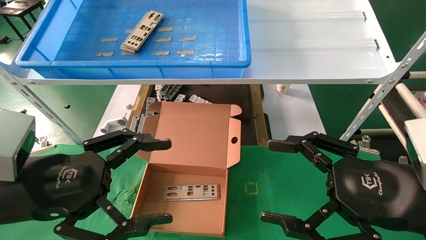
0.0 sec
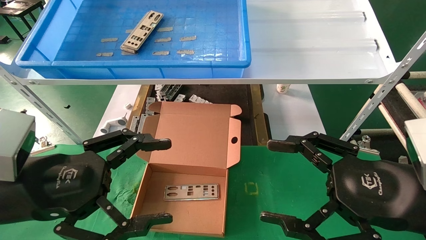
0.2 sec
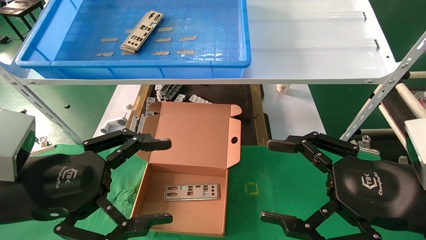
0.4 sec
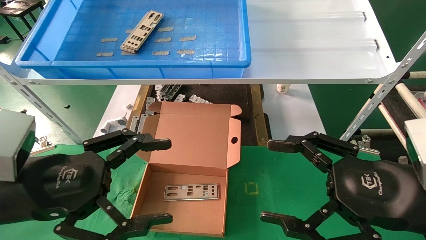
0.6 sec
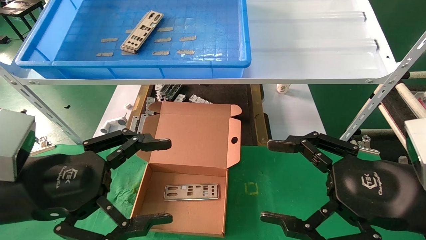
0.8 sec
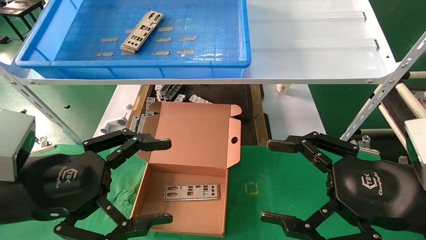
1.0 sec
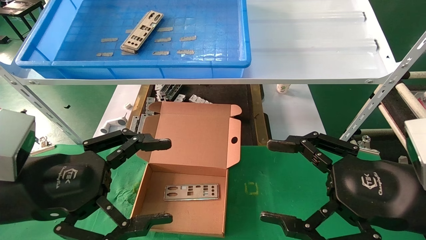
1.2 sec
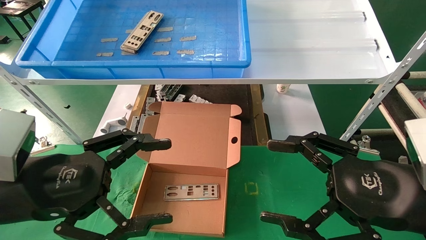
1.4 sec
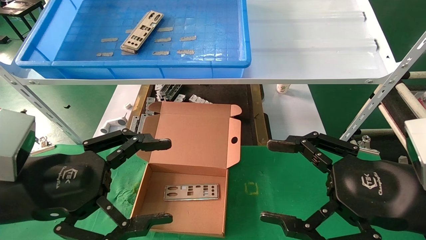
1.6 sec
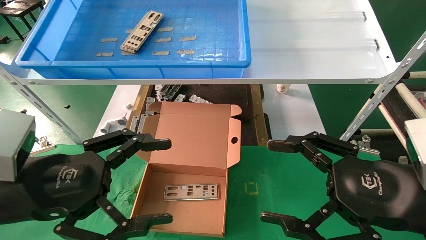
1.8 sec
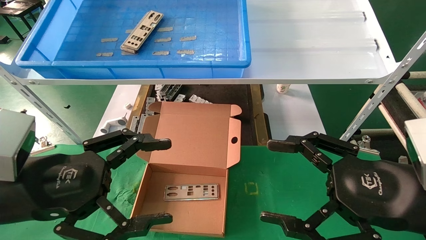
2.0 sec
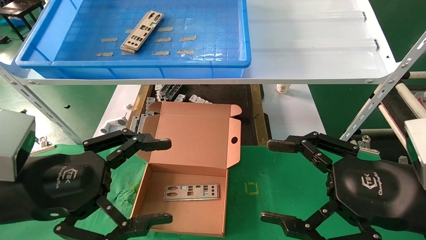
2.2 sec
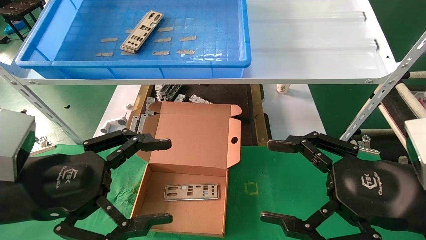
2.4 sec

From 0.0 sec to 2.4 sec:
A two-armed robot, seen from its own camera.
Task of the whole recording: pick up the parts on the tray and put them in the cardboard box.
From 0.0 sec to 2.4 sec: Neither gripper changes place.

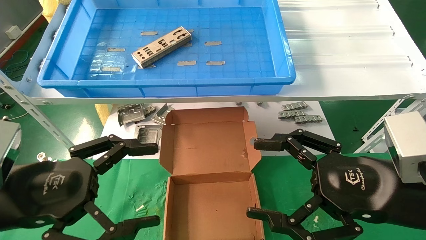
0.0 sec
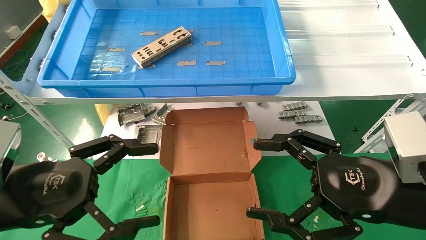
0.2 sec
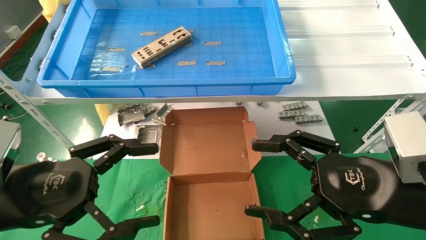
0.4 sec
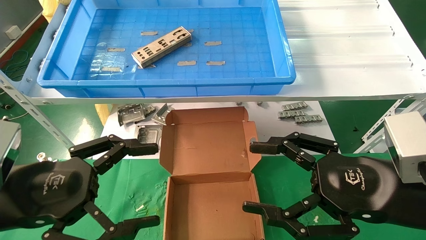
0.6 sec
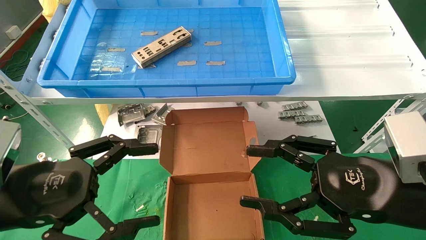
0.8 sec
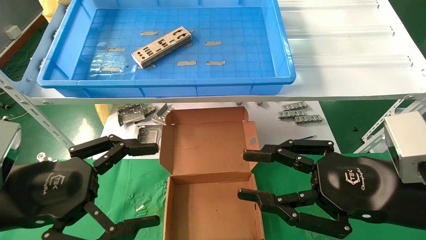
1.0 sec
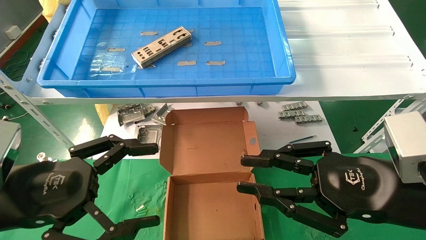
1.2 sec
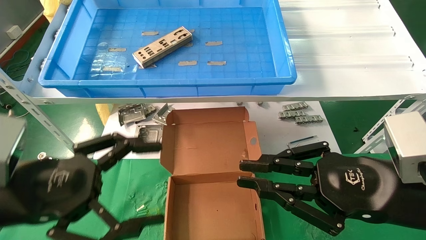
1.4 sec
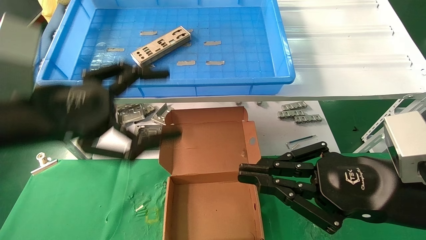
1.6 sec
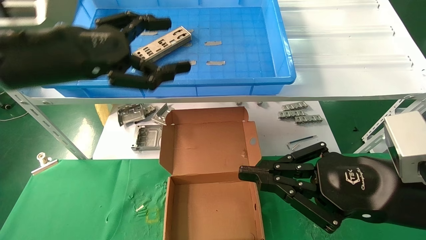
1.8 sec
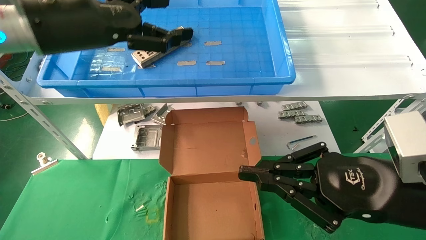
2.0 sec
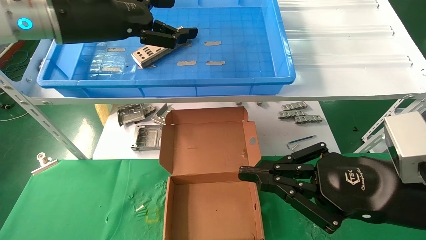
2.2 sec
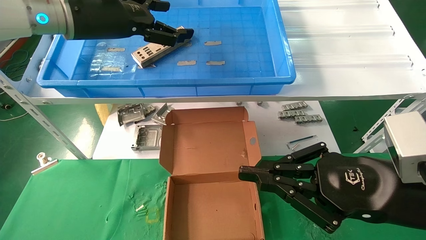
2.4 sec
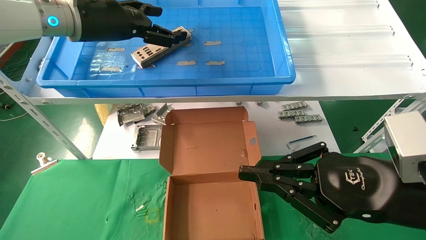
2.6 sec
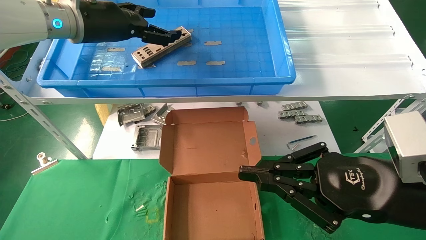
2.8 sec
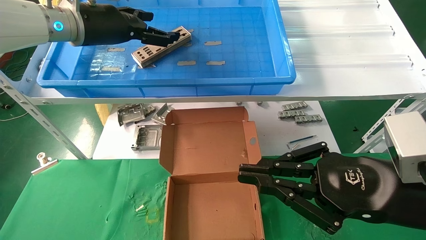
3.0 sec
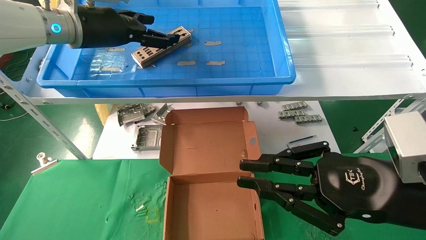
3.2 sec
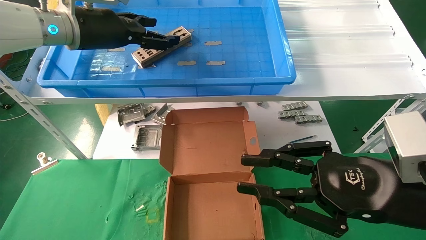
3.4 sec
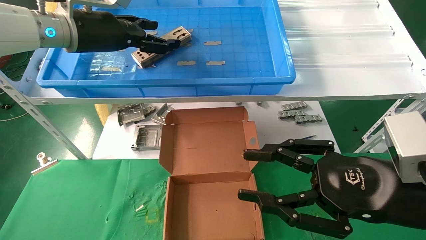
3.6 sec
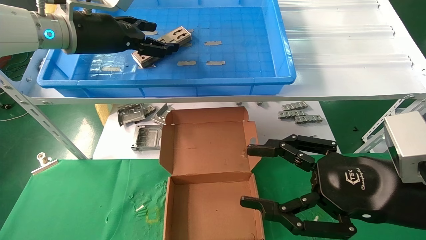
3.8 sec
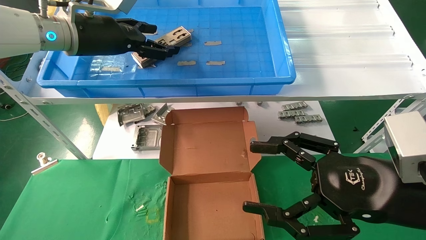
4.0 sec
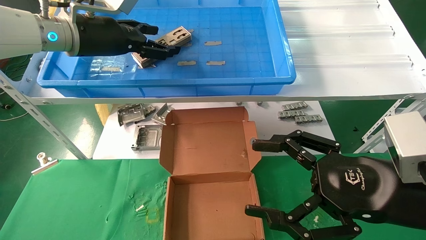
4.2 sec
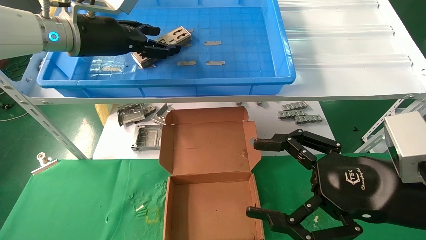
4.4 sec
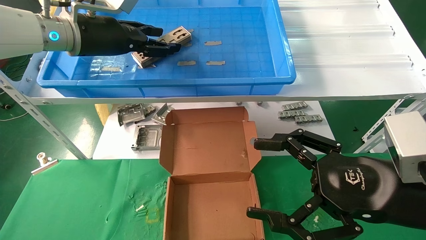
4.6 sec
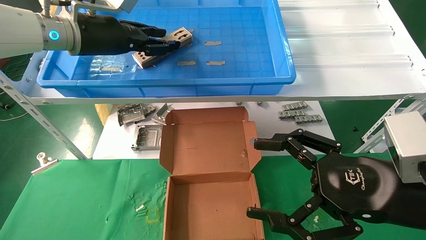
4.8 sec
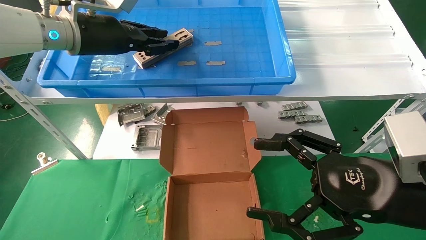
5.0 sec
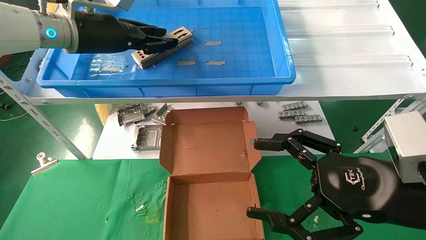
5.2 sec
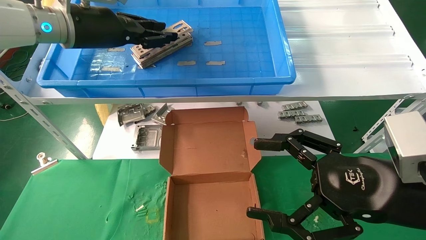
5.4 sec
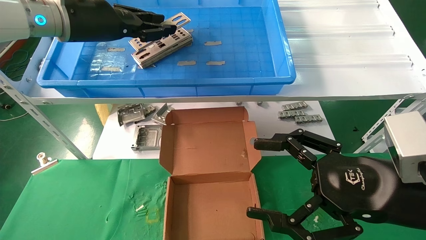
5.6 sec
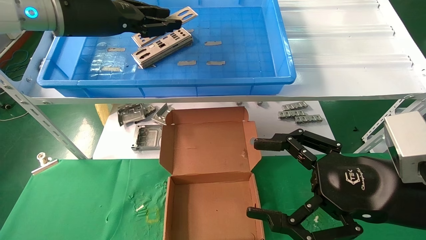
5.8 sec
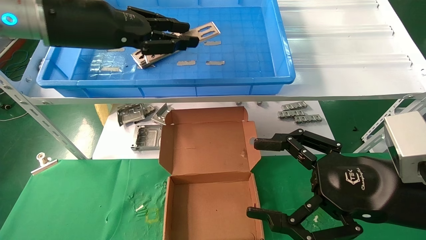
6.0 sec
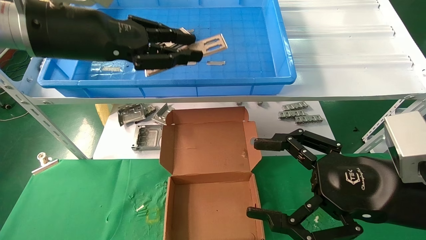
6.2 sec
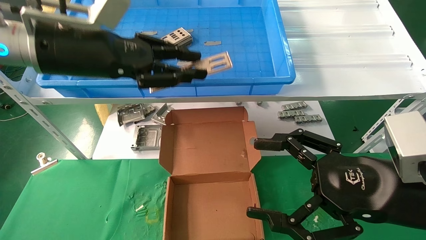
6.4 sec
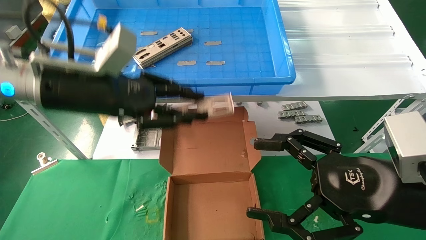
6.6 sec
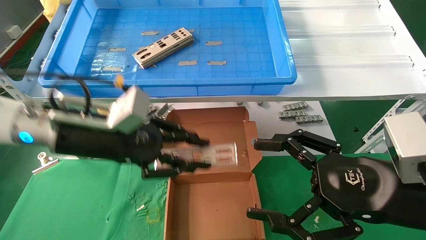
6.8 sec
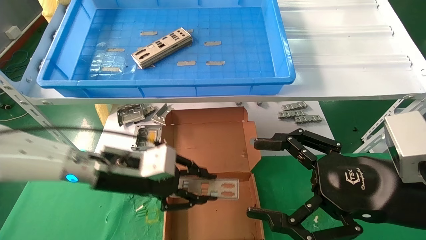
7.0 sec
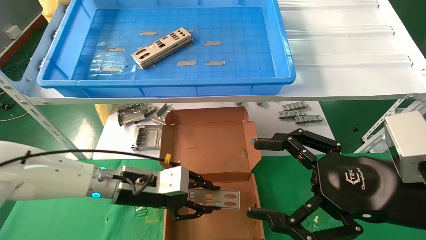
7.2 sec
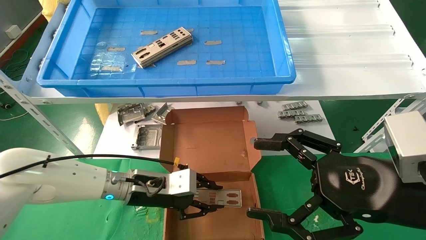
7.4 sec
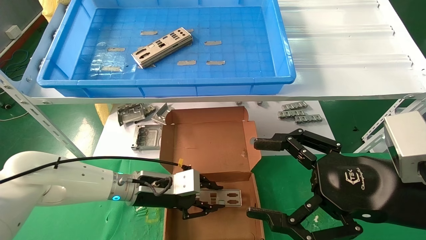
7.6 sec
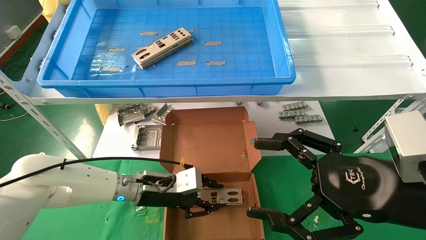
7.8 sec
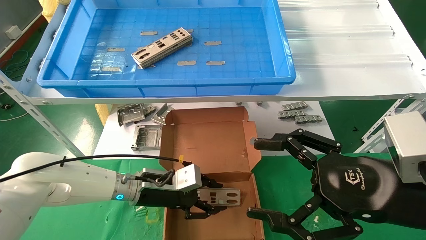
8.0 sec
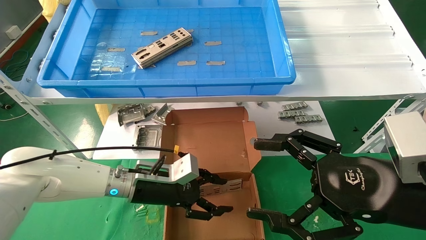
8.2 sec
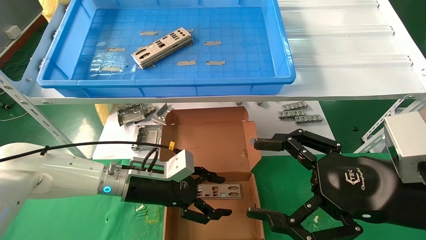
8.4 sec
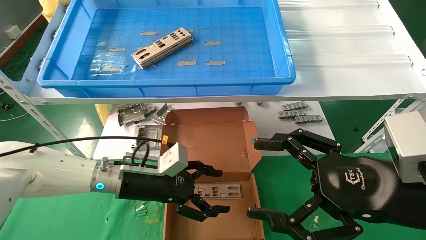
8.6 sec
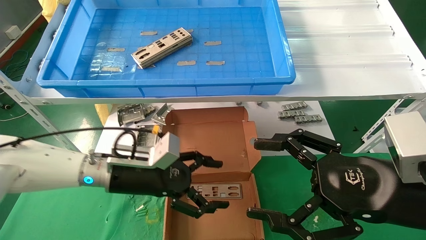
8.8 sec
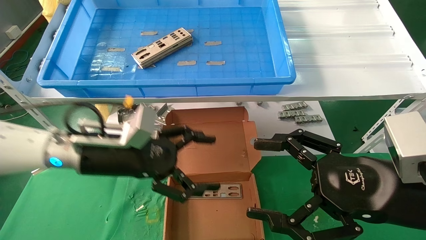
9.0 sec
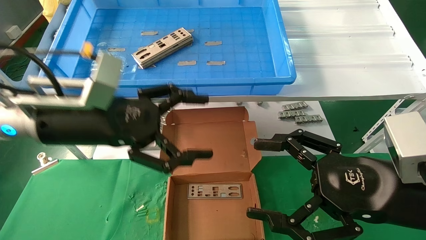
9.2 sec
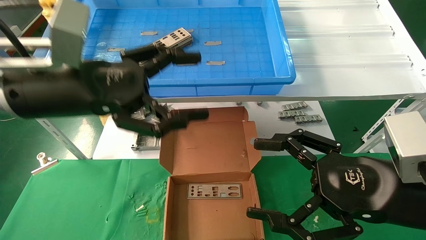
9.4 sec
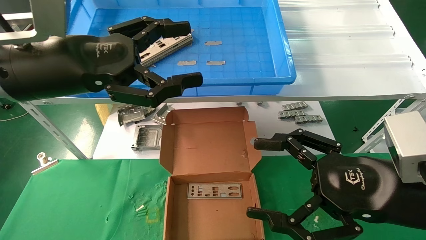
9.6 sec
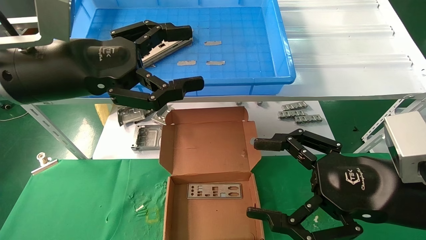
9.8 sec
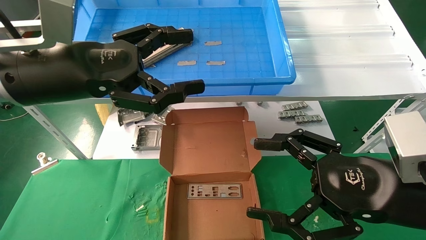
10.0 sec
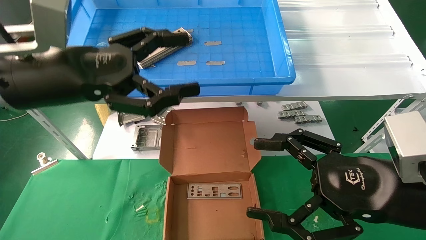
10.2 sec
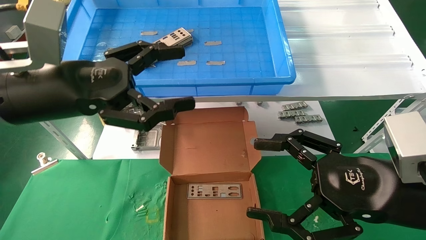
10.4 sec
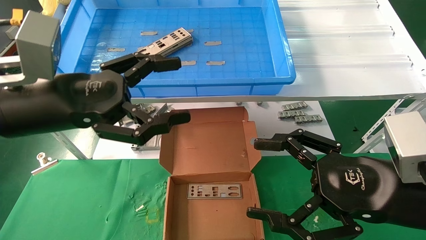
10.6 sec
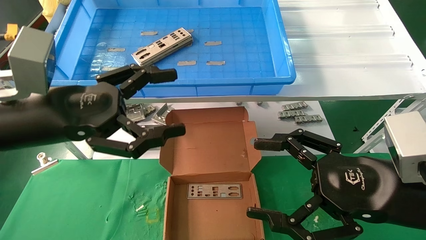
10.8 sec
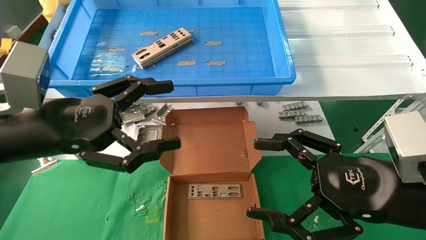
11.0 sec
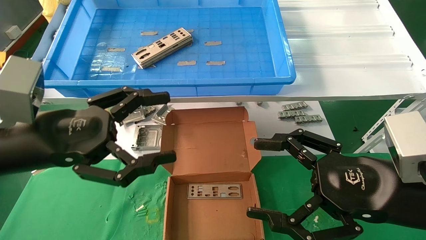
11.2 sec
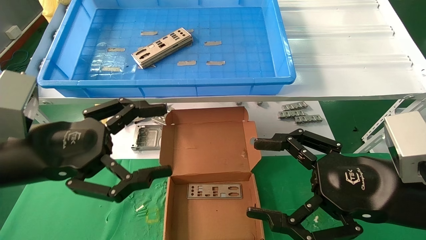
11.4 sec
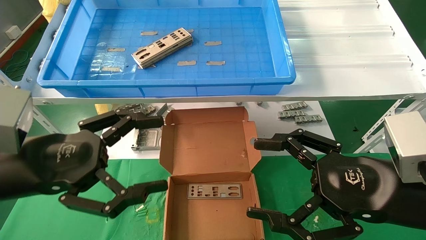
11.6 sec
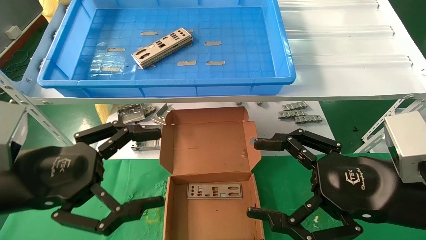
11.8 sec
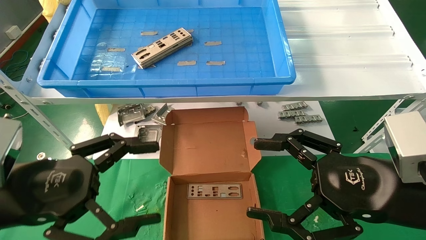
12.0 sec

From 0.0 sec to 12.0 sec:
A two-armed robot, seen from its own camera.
Task of the whole recording: pick up the parts on the tray and put them in the cardboard box.
Step, from 1.6 sec to 5.0 sec: Pick up the IO bracket from the container box.
Step, from 5.2 sec to 8.2 sec: Place the IO bracket into the ingredient slot.
From 0.0 sec to 1.6 sec: The right gripper closes. Meanwhile the left gripper moves upward, approximately 10 cm.
From 1.6 sec to 3.0 sec: The left gripper heads forward and upward, covering roughly 20 cm.
From 3.0 sec to 4.4 sec: The right gripper opens.
From 4.4 sec to 6.0 sec: The left gripper goes some 5 cm backward, and closes.
From 6.0 sec to 7.6 sec: The left gripper moves downward, roughly 30 cm.
From 7.6 sec to 9.0 sec: The left gripper moves upward and backward, some 15 cm, and opens up.
From 9.0 sec to 10.4 sec: The left gripper goes about 10 cm upward and backward.
From 10.4 sec to 12.0 sec: The left gripper is displaced downward and backward by about 10 cm.

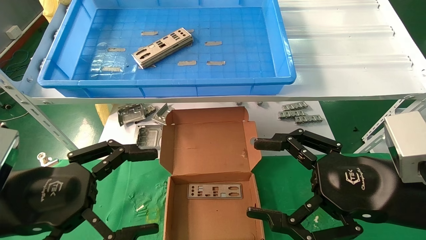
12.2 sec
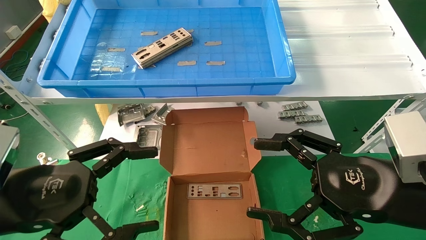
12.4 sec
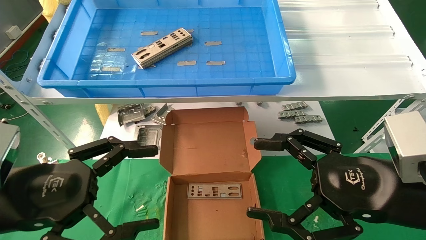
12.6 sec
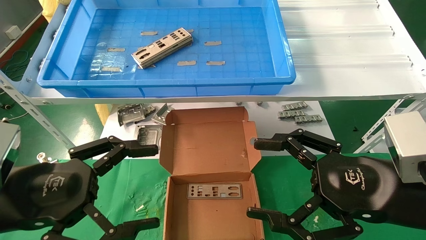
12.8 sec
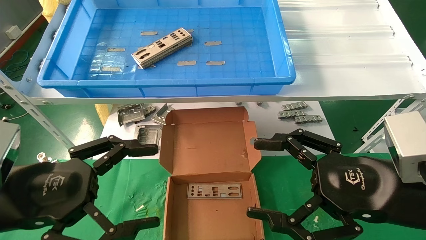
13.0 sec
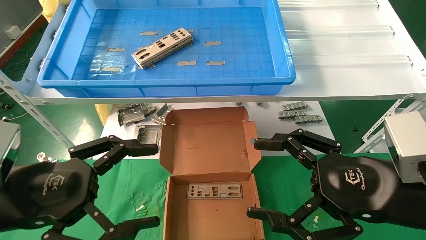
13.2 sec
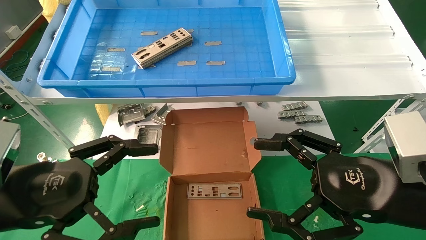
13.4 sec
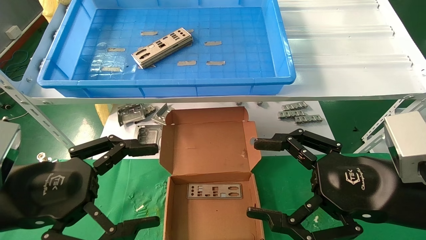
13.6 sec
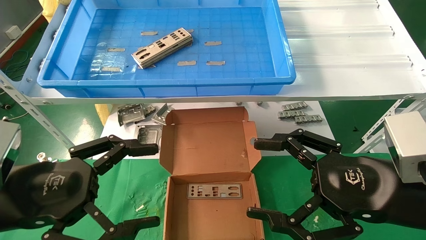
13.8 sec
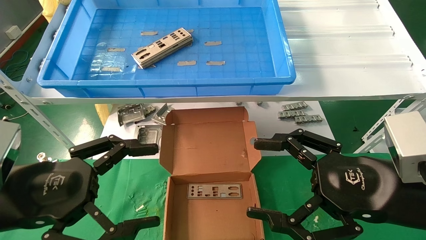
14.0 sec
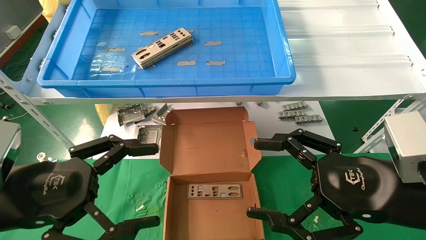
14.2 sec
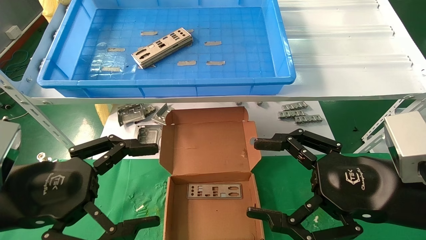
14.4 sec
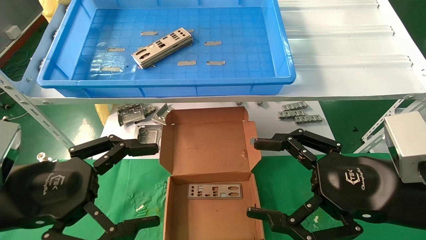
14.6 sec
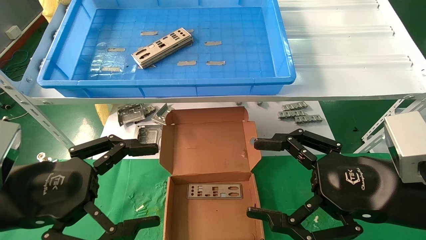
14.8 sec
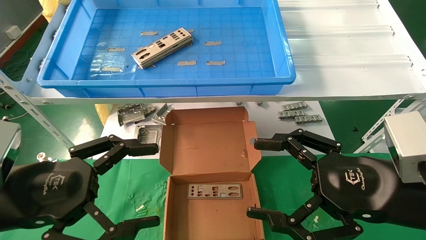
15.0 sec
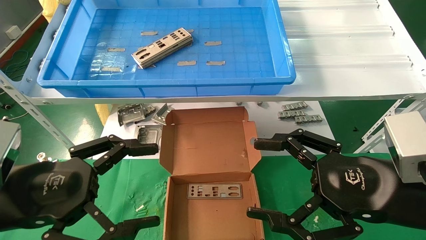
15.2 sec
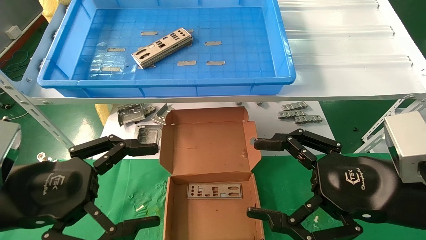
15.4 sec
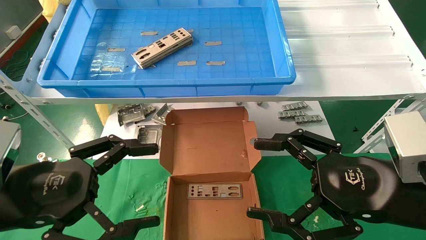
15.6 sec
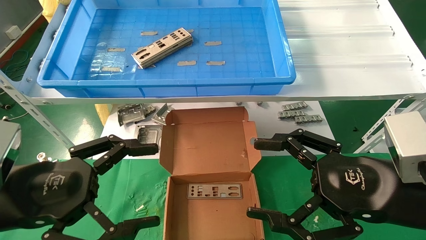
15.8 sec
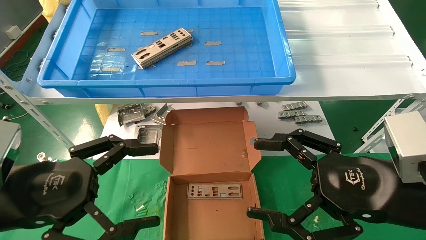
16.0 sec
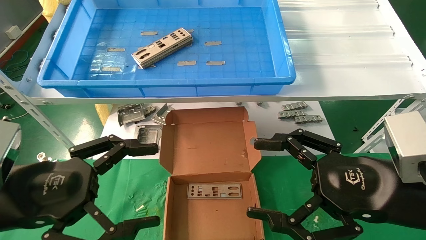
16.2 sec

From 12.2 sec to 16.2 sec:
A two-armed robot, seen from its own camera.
Task of the whole recording: pick up the parts on the tray and put them in the cardboard box.
From 12.2 sec to 16.2 sec: The two grippers keep their place.
